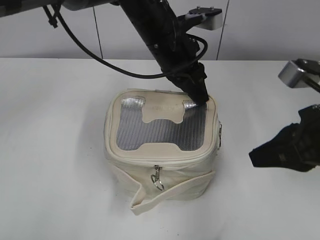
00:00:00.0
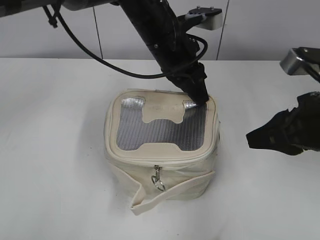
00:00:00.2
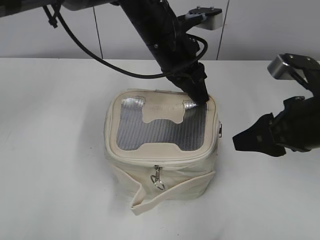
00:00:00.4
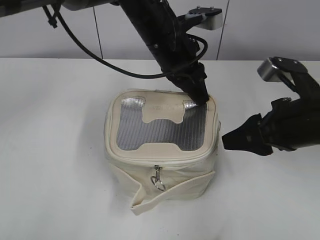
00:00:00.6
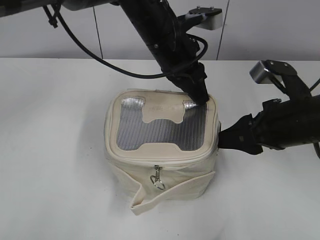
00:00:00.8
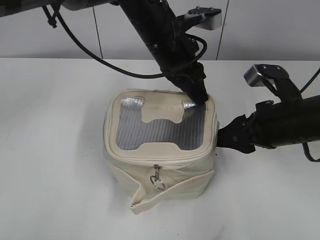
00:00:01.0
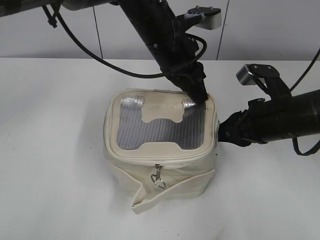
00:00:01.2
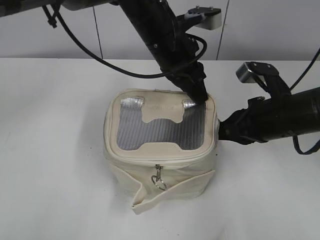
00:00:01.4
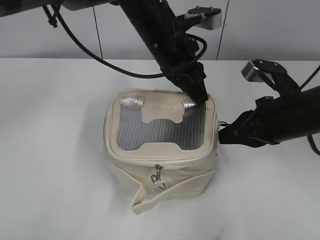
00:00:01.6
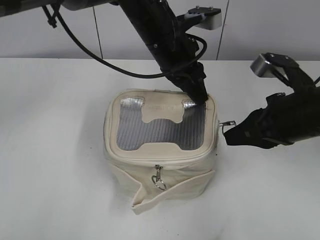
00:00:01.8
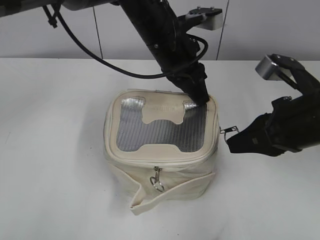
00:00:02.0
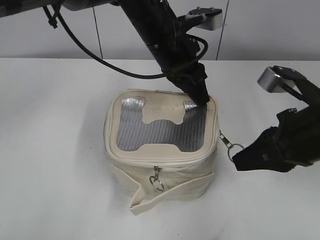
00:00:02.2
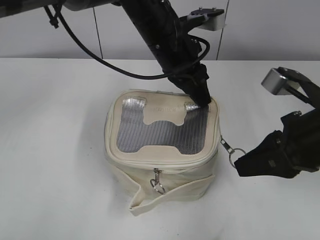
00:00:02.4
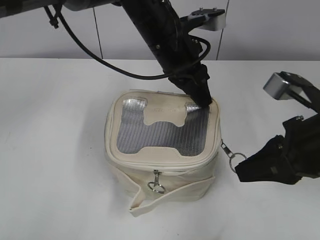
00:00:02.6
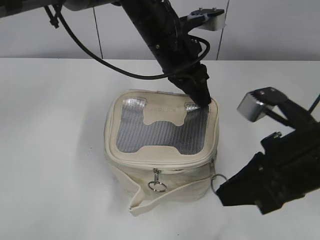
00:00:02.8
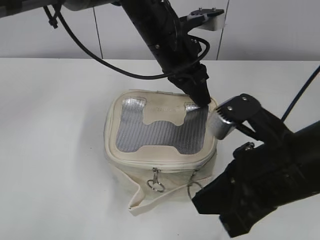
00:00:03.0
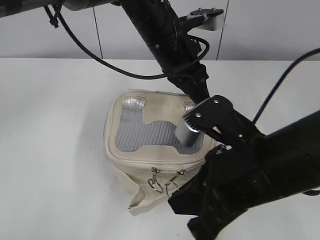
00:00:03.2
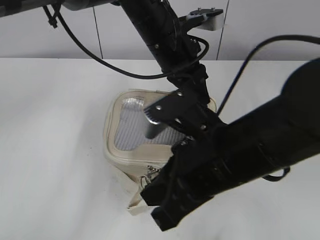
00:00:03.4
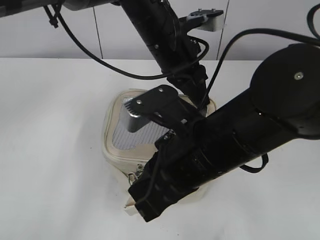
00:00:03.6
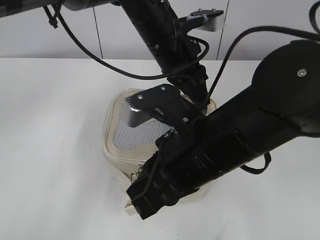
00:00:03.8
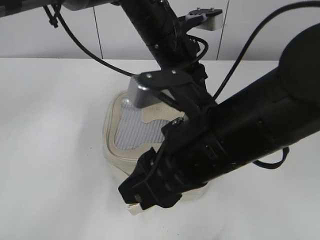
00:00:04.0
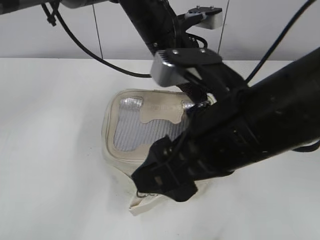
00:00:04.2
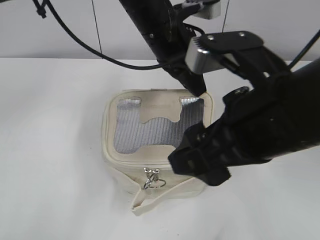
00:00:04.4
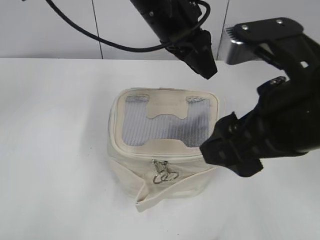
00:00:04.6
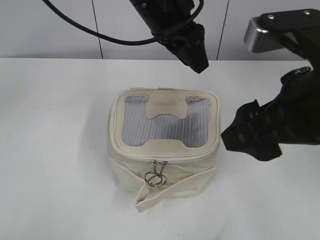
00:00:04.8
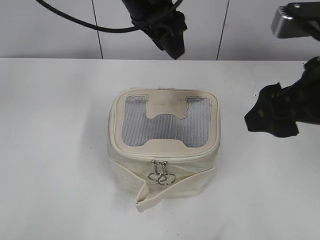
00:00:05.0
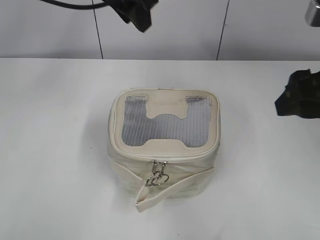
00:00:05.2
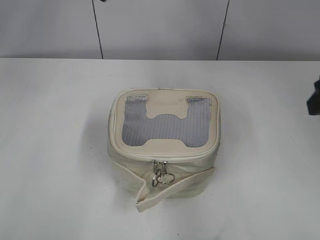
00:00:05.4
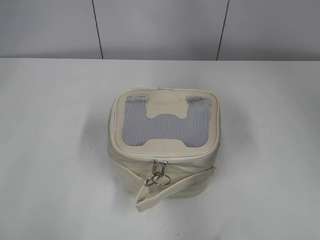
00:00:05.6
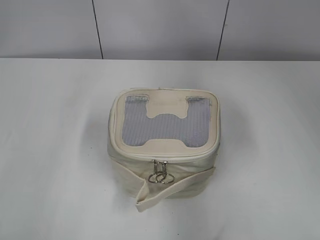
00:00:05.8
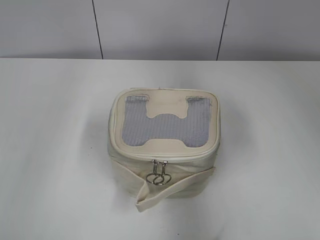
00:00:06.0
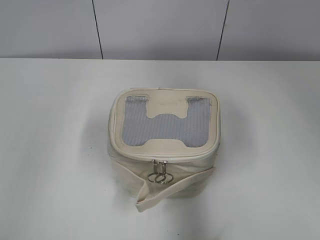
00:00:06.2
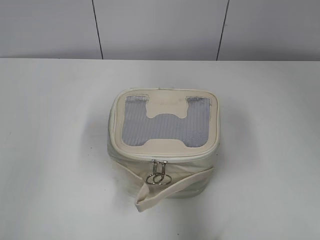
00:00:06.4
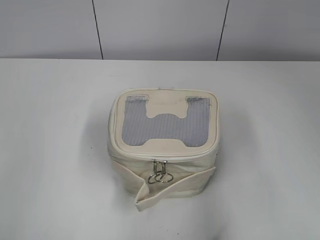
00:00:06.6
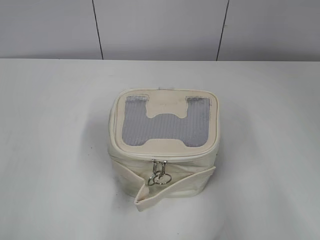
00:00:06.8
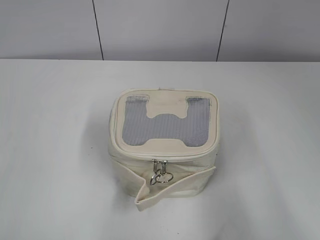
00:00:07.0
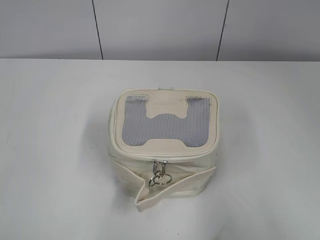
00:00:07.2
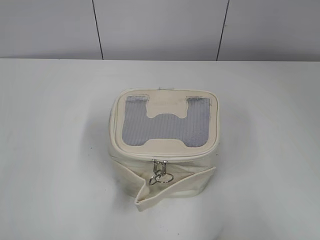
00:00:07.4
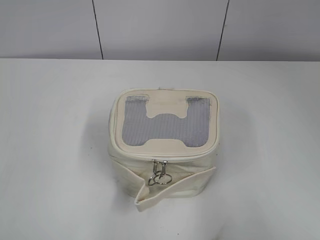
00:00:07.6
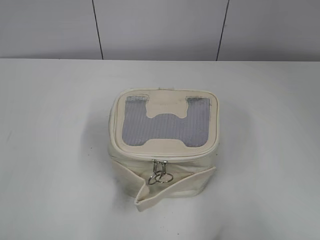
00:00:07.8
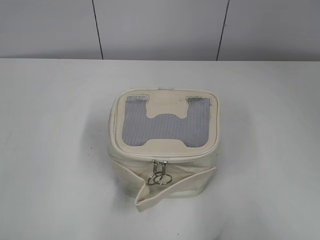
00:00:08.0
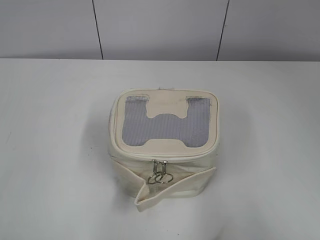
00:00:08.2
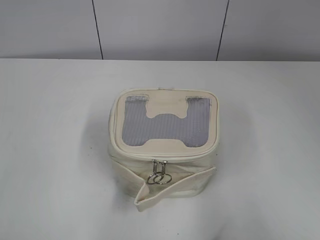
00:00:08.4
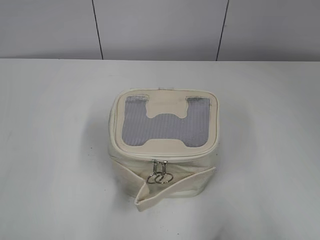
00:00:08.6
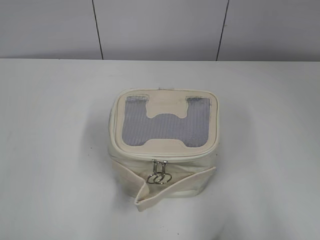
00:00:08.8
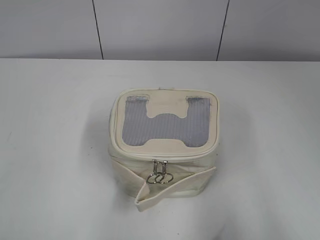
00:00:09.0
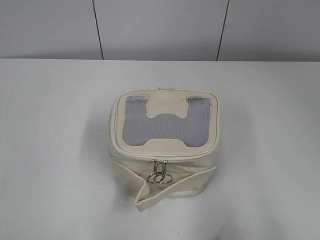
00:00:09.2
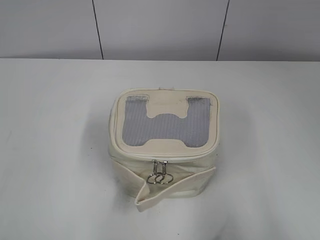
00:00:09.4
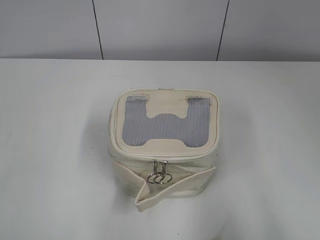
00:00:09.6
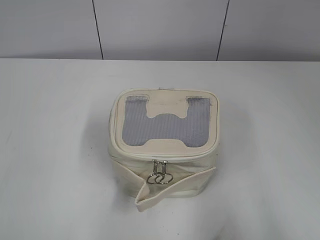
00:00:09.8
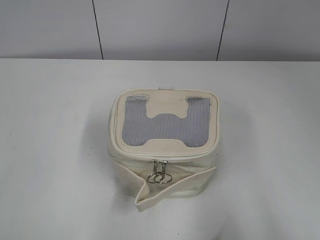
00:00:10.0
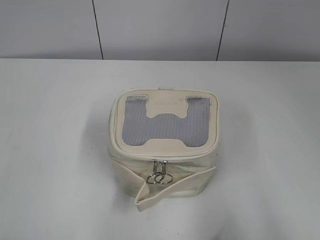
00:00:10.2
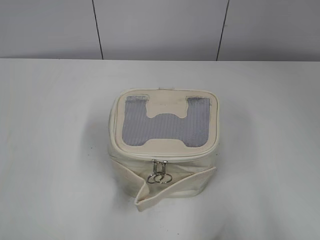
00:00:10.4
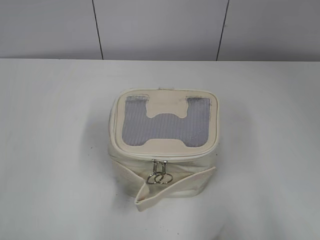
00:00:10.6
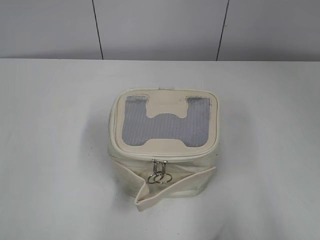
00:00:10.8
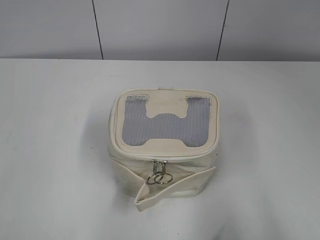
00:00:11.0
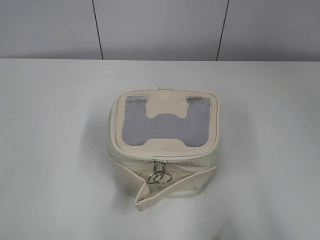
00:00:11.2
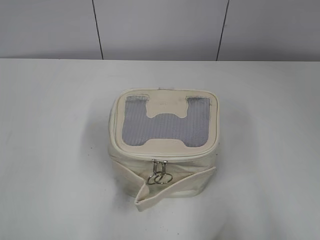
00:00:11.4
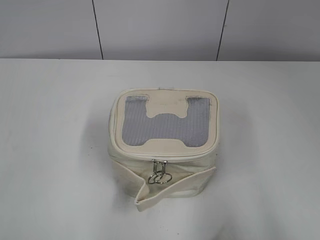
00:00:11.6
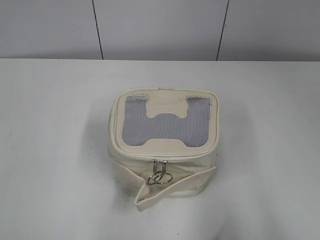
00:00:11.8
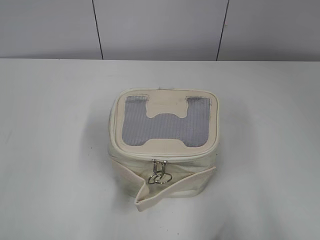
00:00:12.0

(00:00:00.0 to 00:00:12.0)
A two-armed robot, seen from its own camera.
Step, 00:00:00.0 - 00:00:03.8: Zip up the bag with your right hand.
Step, 00:00:04.2 - 00:00:04.4: Hold the bag with your left hand.
00:00:00.0 - 00:00:01.6: The right gripper moves forward and downward, some 10 cm, and opens and closes again.
00:00:01.6 - 00:00:03.0: The right gripper shifts approximately 10 cm backward and to the left.
00:00:03.0 - 00:00:04.4: The right gripper shifts some 5 cm upward, and opens.
00:00:04.4 - 00:00:06.0: The left gripper moves to the left and upward, approximately 35 cm, and opens; the right gripper heads to the right, covering about 15 cm.
00:00:06.0 - 00:00:07.6: The right gripper goes roughly 20 cm backward. Meanwhile the left gripper goes roughly 30 cm backward and downward.
00:00:09.0 - 00:00:12.0: The two grippers keep their place.

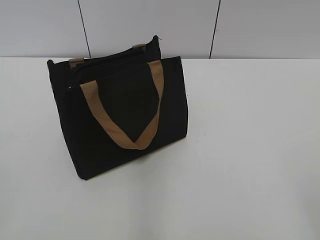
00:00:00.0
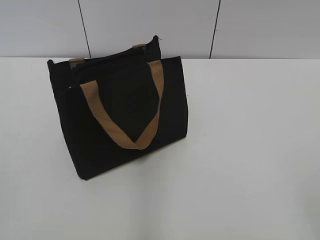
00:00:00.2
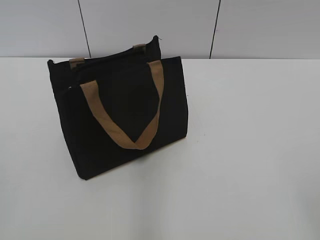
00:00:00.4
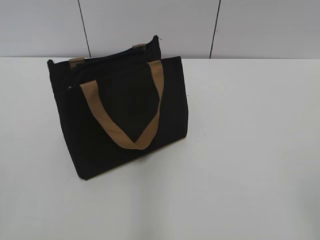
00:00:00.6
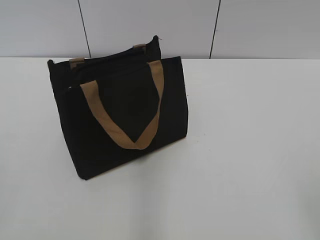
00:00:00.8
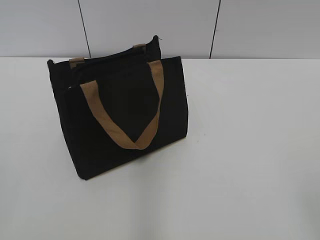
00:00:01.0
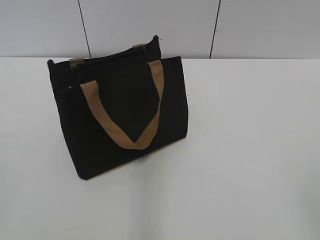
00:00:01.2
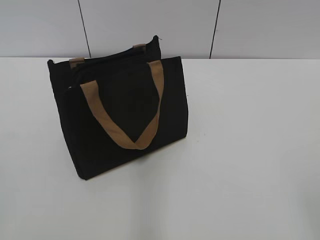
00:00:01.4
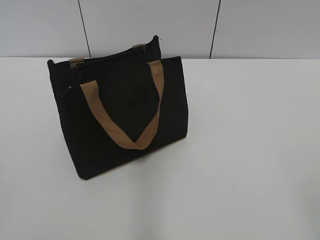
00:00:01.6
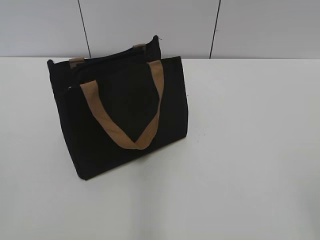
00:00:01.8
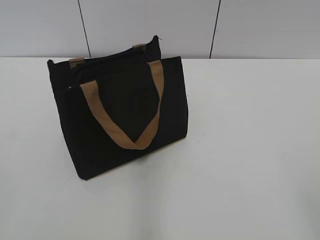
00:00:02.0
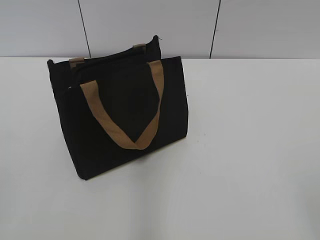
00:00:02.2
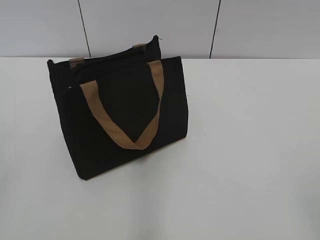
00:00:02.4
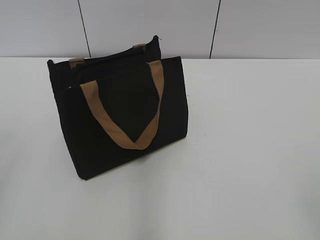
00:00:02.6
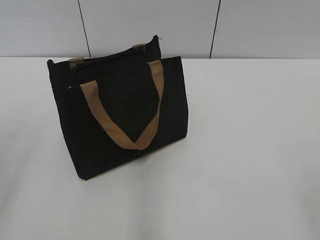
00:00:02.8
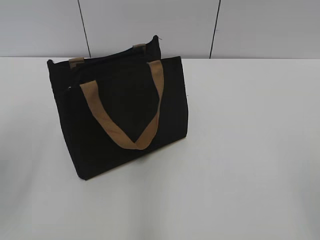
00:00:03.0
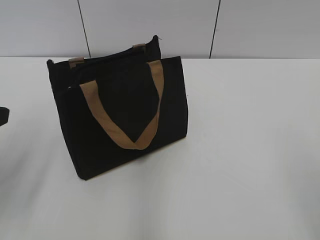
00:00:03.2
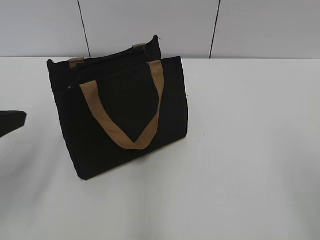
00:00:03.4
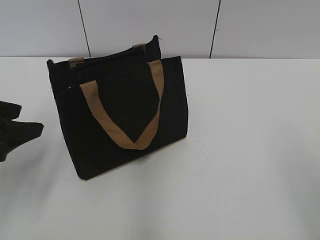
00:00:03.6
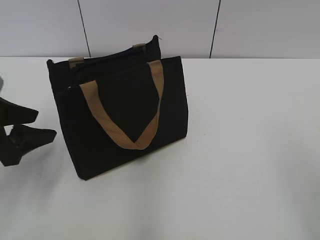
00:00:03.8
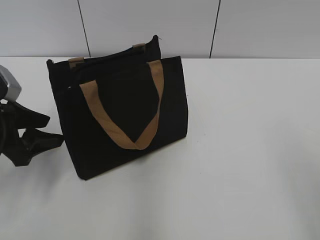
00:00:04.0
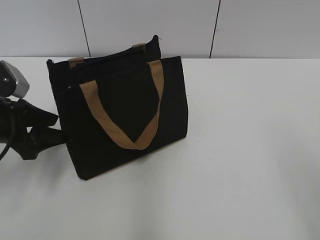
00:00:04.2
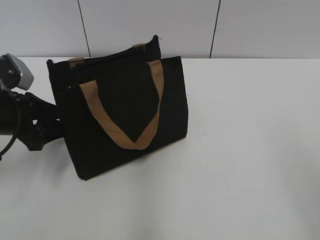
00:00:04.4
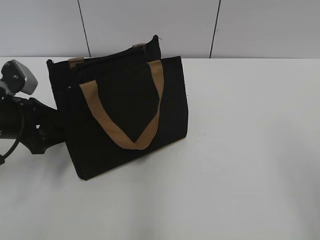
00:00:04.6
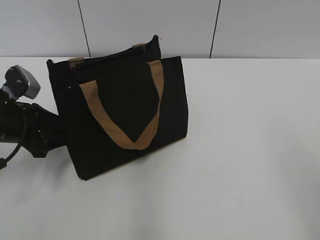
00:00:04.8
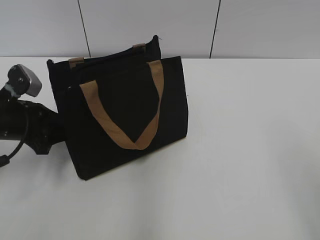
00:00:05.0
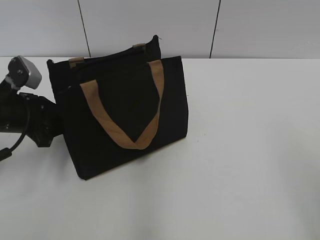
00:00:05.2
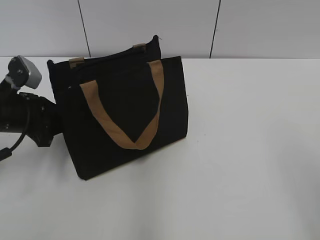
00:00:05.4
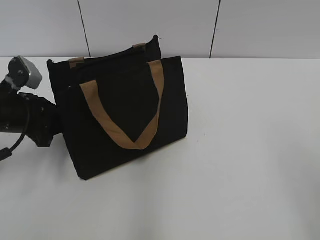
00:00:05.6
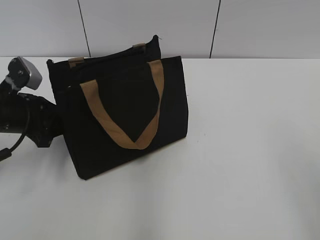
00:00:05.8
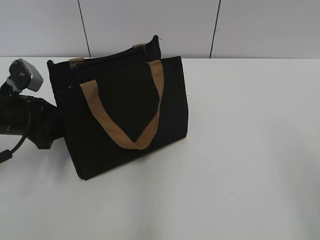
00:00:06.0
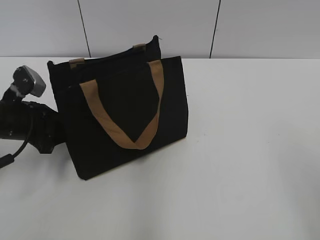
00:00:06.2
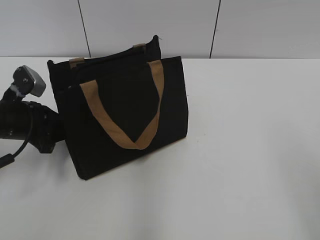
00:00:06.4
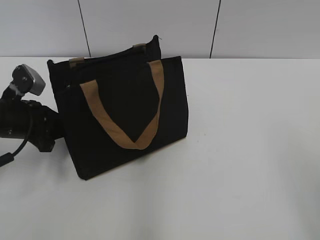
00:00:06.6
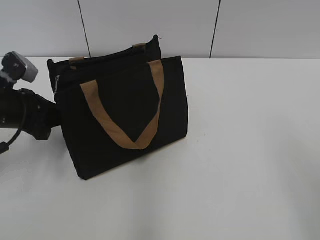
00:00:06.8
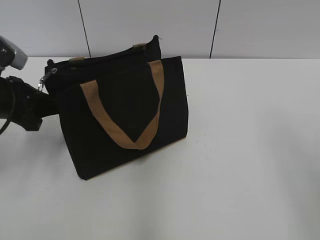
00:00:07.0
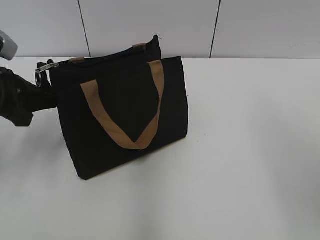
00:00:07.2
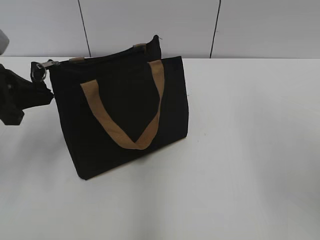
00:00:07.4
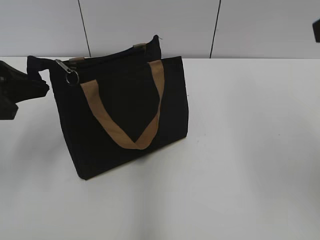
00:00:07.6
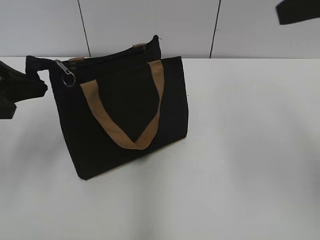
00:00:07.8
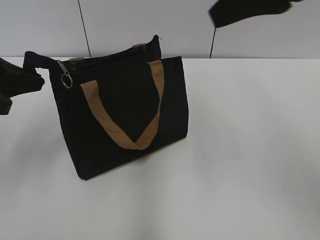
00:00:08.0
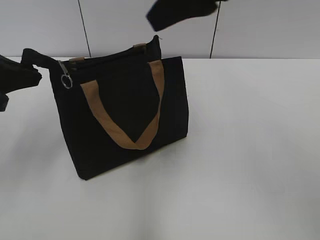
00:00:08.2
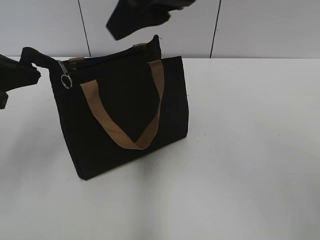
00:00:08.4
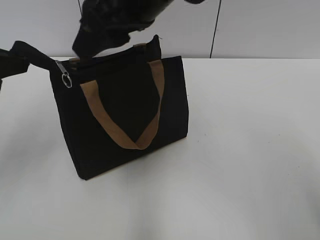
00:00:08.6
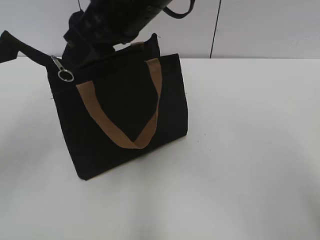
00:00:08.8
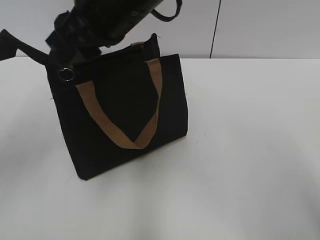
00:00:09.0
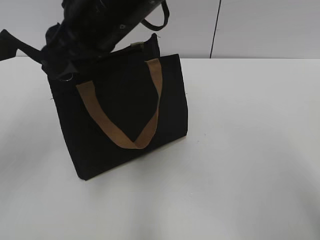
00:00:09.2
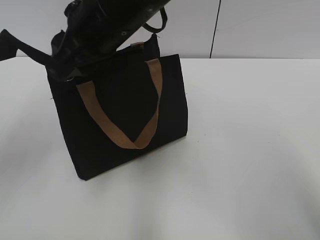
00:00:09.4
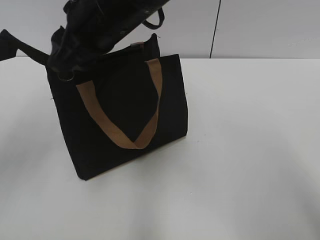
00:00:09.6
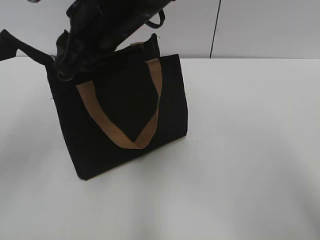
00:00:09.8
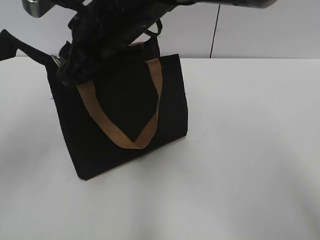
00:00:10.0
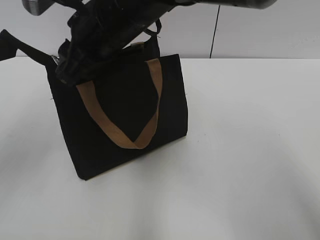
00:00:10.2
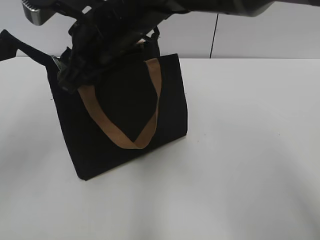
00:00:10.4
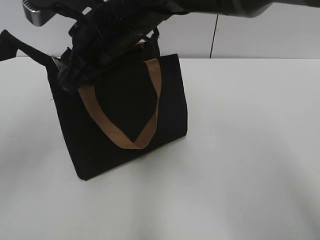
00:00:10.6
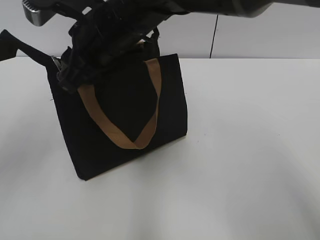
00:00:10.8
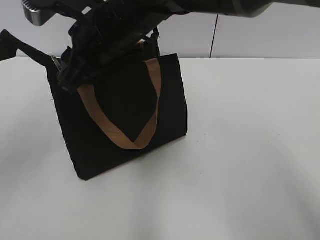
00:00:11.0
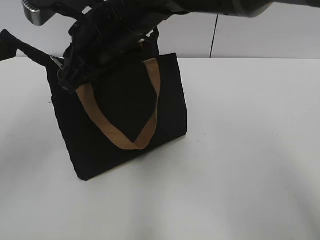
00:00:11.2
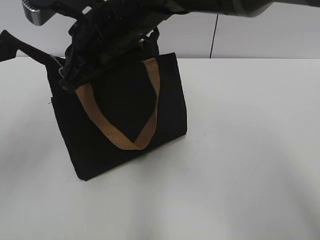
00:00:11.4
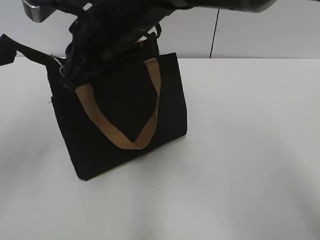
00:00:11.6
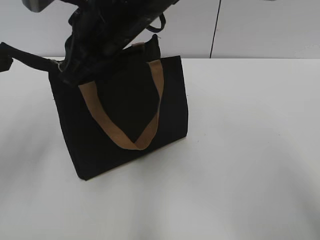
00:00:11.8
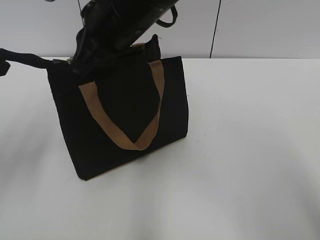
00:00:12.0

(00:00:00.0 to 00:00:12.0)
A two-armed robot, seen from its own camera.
00:00:03.0 - 00:00:04.4: The left gripper goes about 20 cm downward and forward.
00:00:04.4 - 00:00:06.0: There are only small adjustments of the grippers.
00:00:06.0 - 00:00:07.6: The left gripper heads upward, covering about 10 cm, and closes its fingers.
00:00:07.6 - 00:00:09.0: The left gripper is displaced upward by about 5 cm; the right gripper heads to the left and forward, covering roughly 30 cm.
00:00:09.0 - 00:00:10.4: The right gripper shifts approximately 5 cm downward.
00:00:10.4 - 00:00:12.0: The right gripper closes its fingers.
